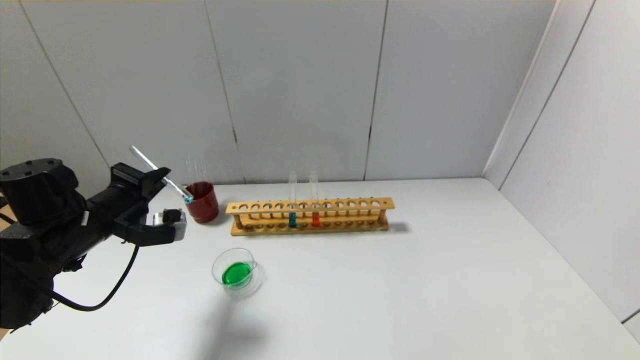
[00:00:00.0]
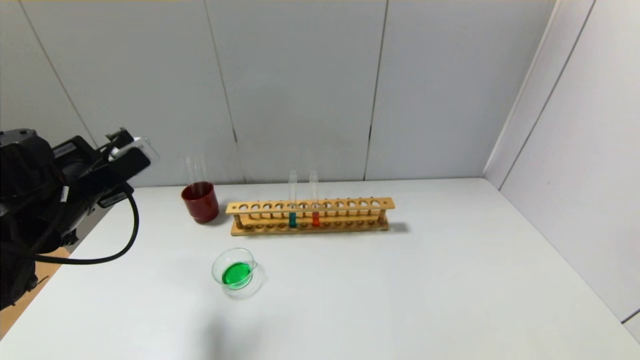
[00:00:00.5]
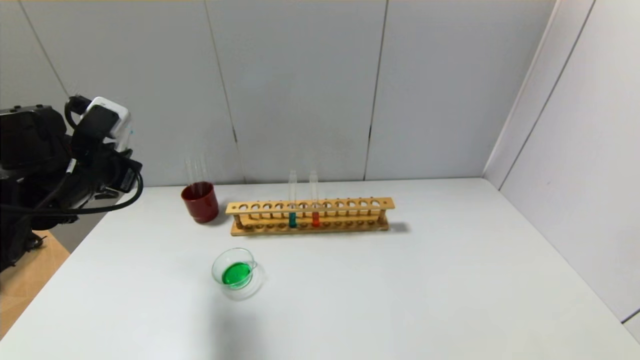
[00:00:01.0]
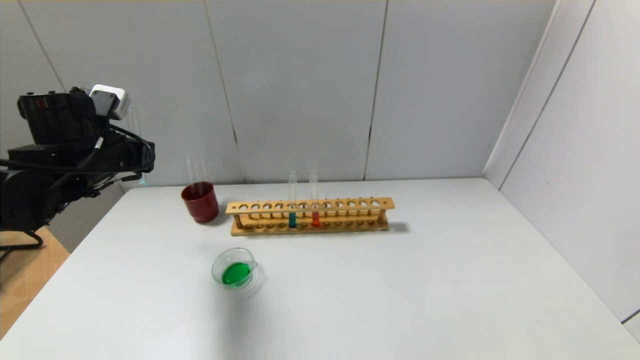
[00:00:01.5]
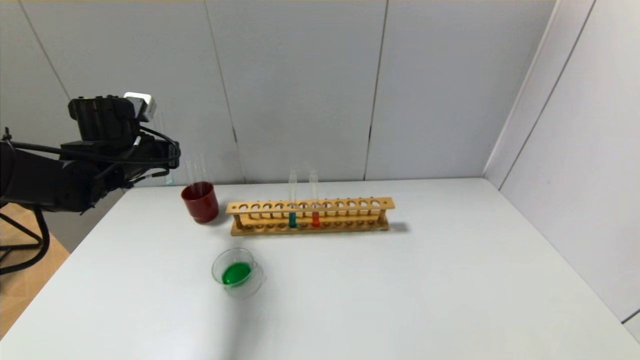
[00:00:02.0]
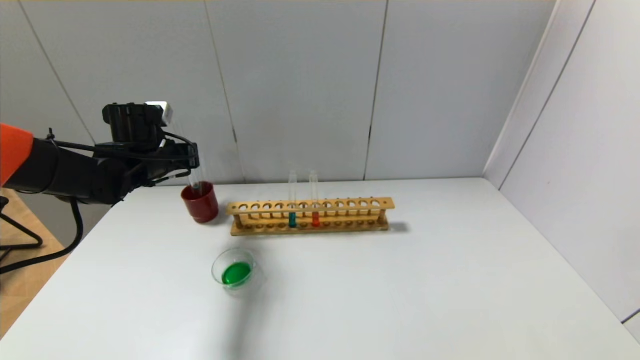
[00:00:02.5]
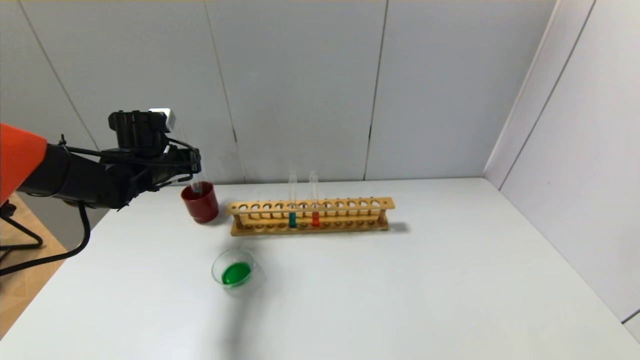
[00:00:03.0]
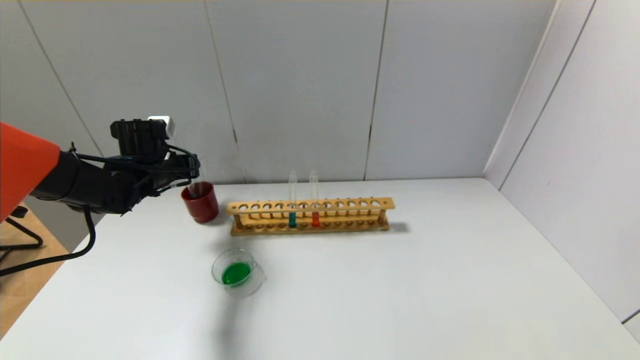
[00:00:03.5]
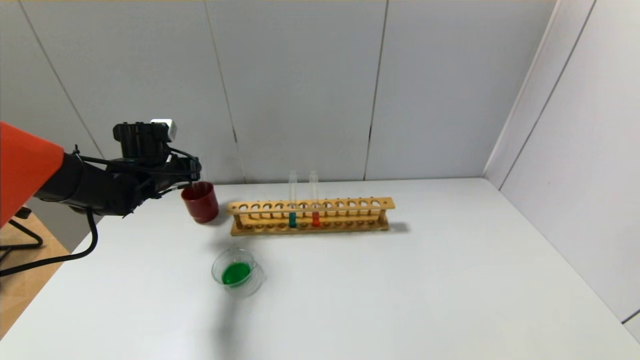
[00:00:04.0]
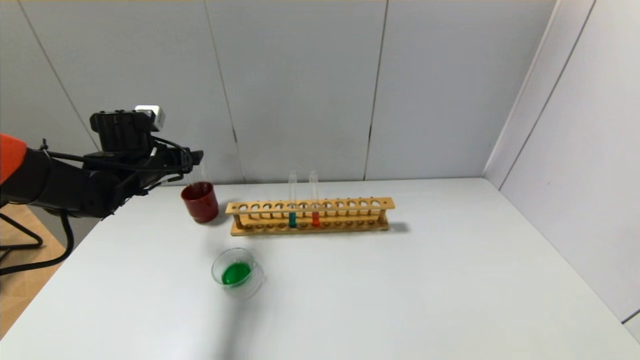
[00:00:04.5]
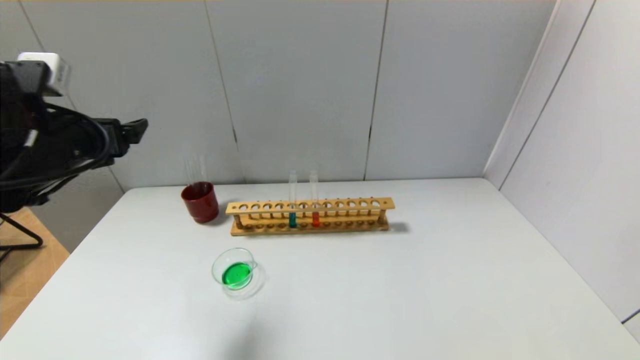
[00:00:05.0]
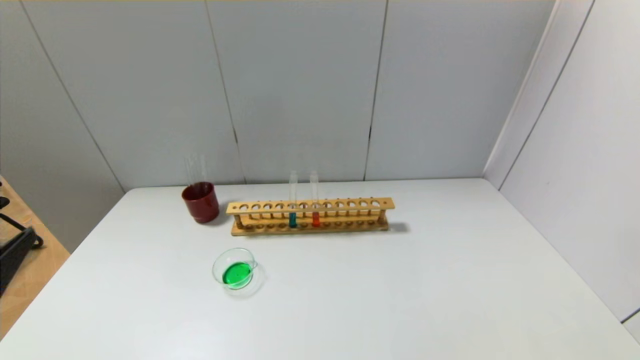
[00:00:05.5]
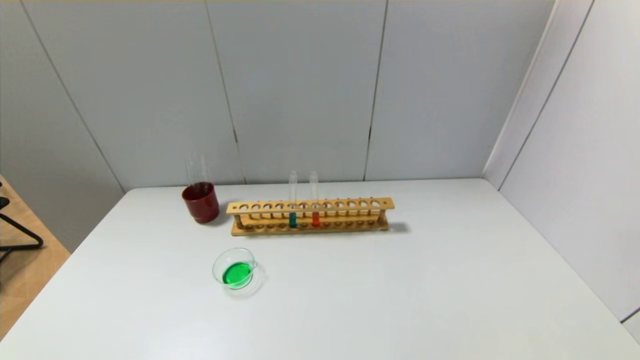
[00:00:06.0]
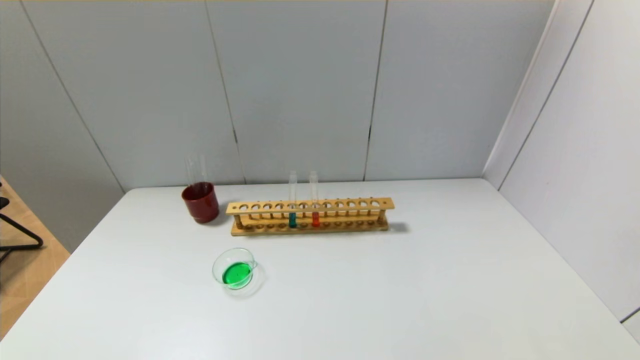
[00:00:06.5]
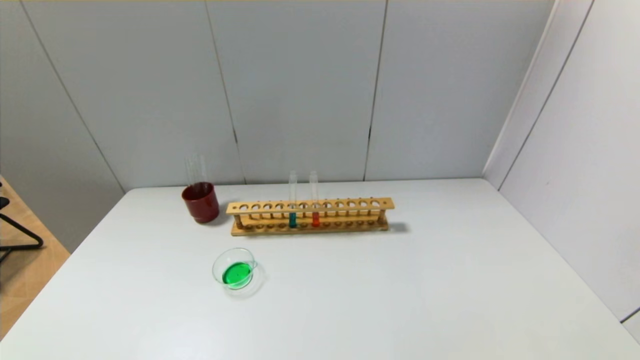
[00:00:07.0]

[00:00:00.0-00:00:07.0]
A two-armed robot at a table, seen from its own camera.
Step, 00:00:00.5 to 00:00:04.0: Place the test tube into the brown cup with the left gripper.
00:00:00.0 to 00:00:02.0: The left gripper heads forward, covering roughly 10 cm.
00:00:02.0 to 00:00:03.5: The left gripper shifts by approximately 5 cm.
00:00:03.5 to 00:00:05.0: The left gripper travels backward and upward by about 20 cm, and opens up.
00:00:05.0 to 00:00:07.0: The left gripper heads backward and downward, covering approximately 35 cm.
